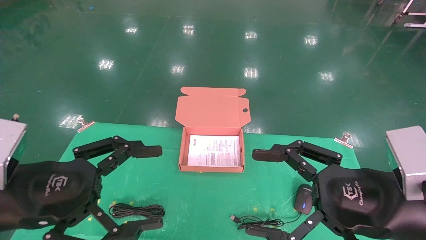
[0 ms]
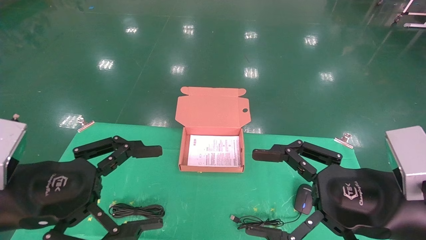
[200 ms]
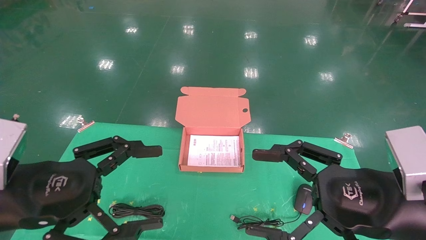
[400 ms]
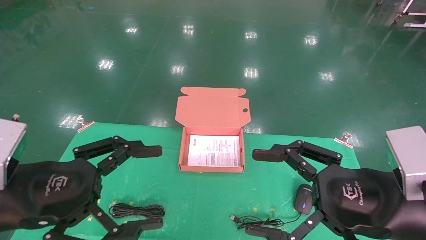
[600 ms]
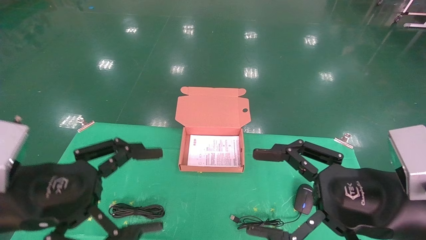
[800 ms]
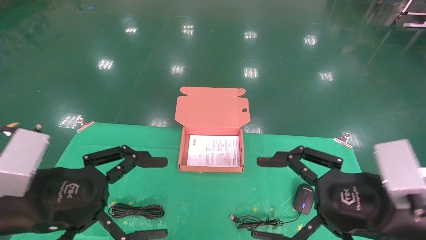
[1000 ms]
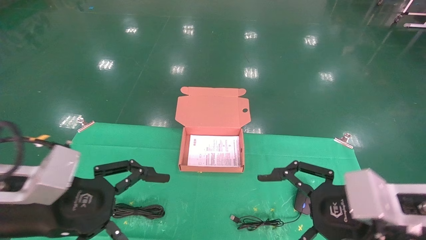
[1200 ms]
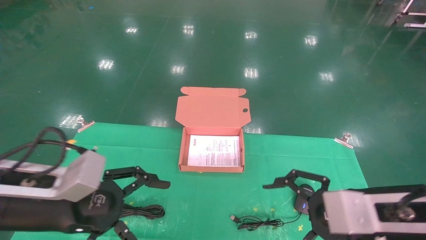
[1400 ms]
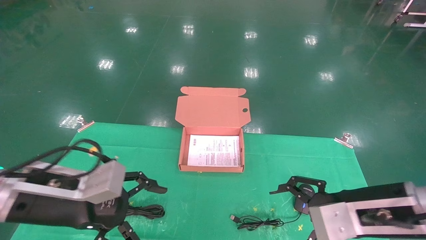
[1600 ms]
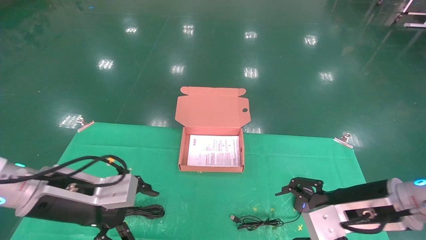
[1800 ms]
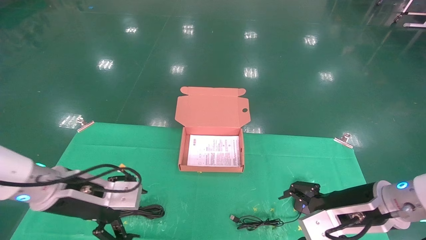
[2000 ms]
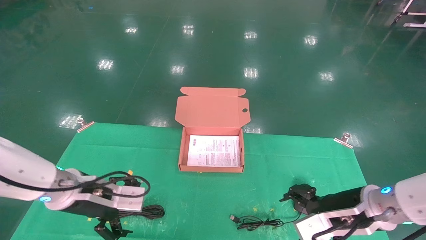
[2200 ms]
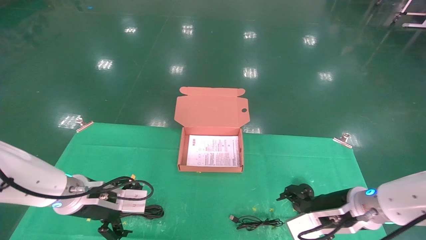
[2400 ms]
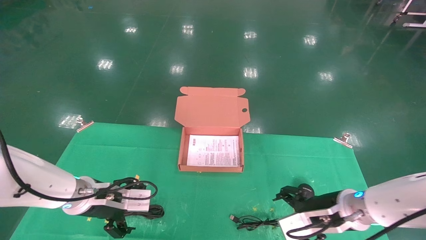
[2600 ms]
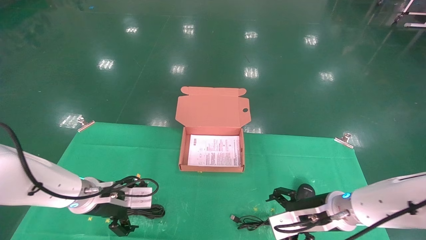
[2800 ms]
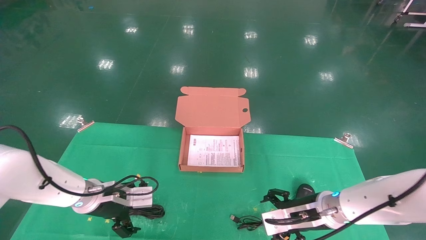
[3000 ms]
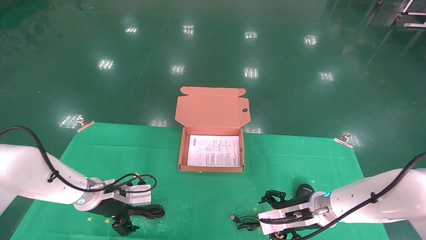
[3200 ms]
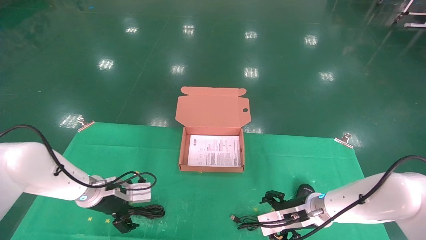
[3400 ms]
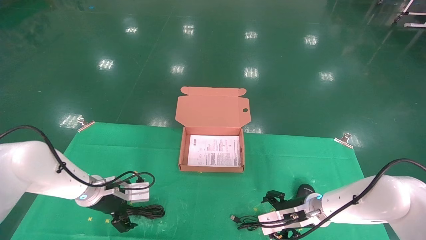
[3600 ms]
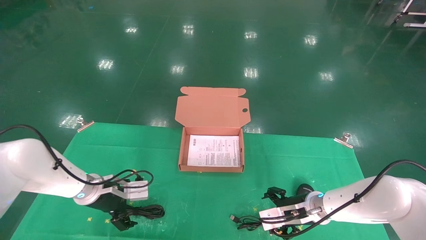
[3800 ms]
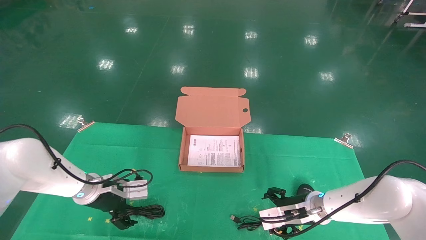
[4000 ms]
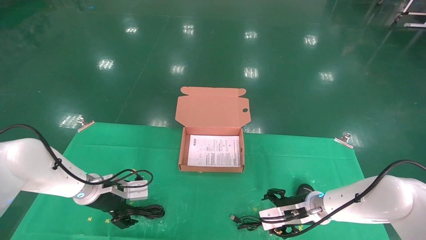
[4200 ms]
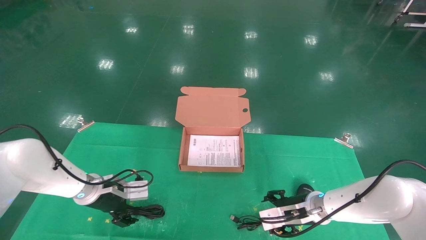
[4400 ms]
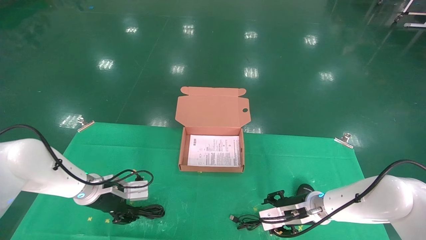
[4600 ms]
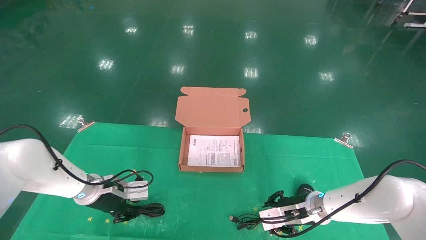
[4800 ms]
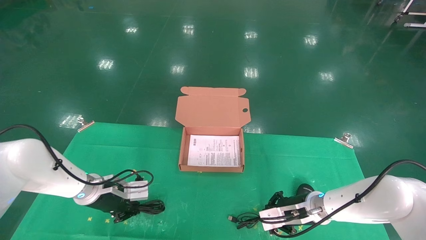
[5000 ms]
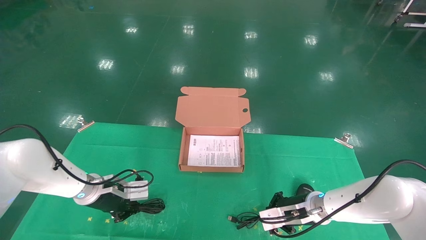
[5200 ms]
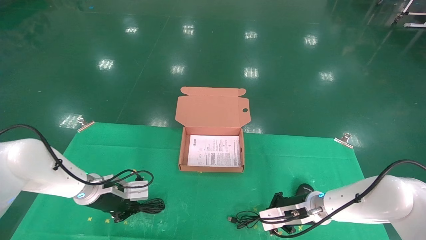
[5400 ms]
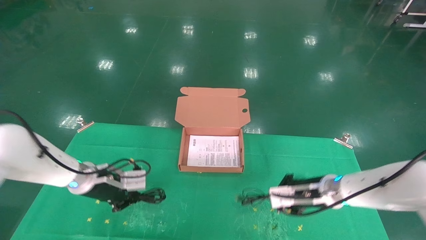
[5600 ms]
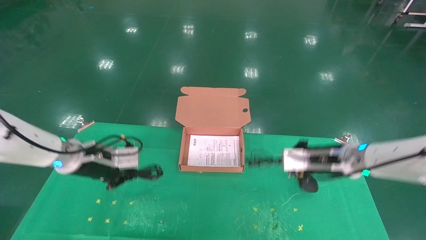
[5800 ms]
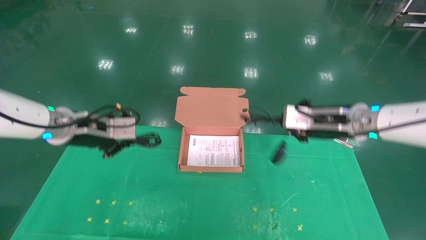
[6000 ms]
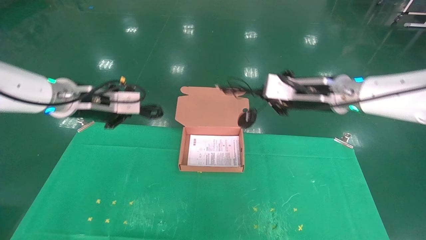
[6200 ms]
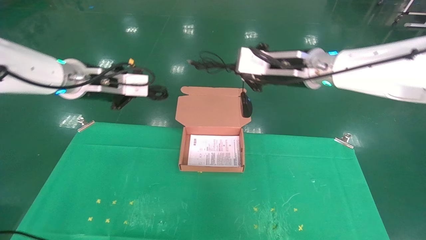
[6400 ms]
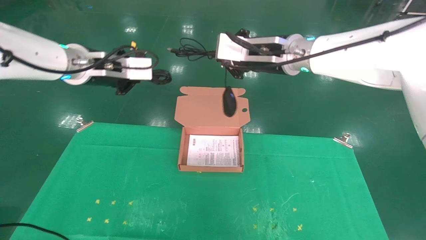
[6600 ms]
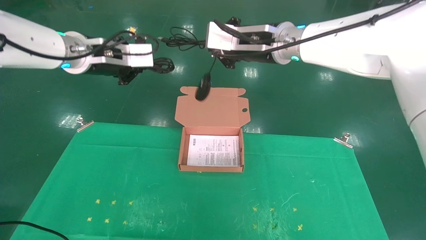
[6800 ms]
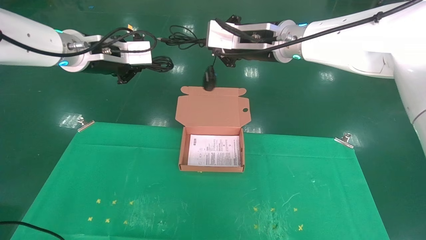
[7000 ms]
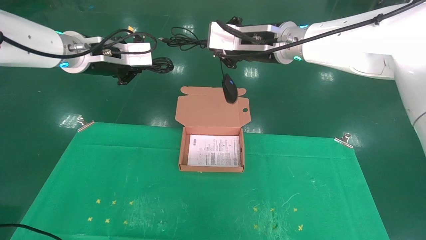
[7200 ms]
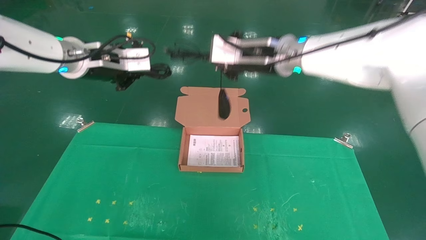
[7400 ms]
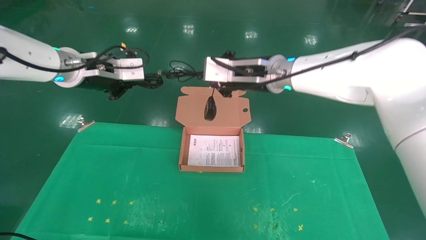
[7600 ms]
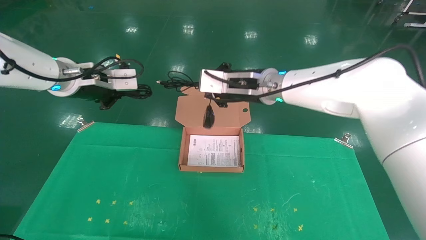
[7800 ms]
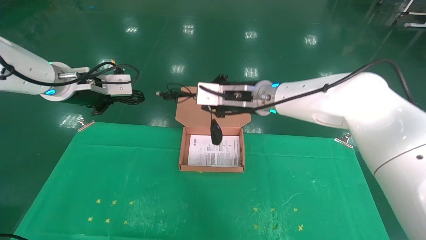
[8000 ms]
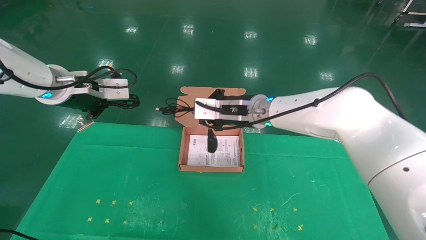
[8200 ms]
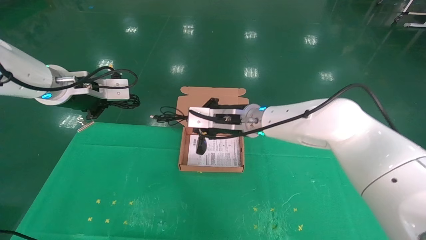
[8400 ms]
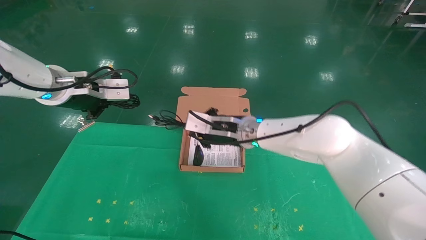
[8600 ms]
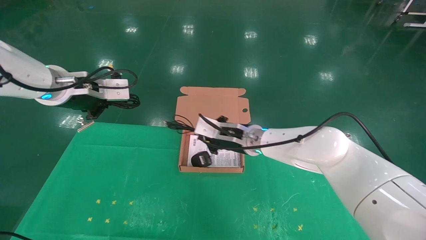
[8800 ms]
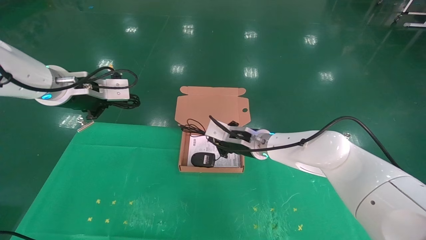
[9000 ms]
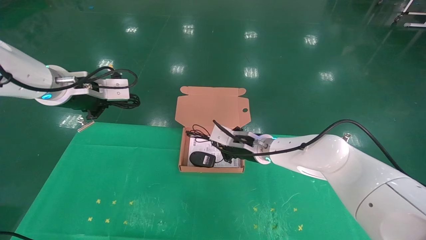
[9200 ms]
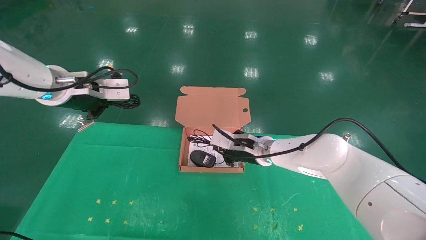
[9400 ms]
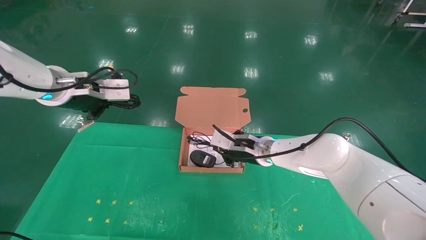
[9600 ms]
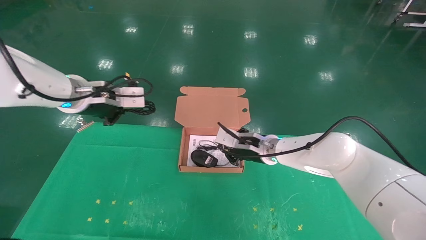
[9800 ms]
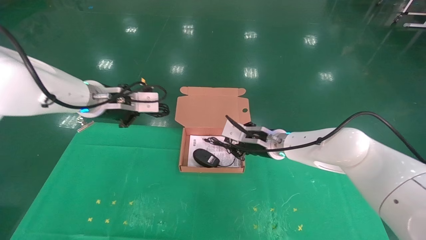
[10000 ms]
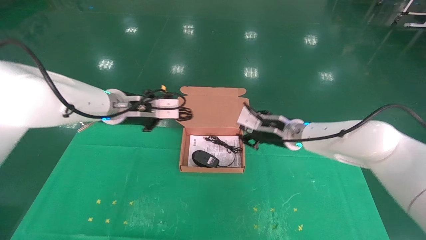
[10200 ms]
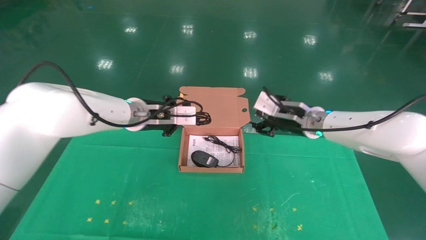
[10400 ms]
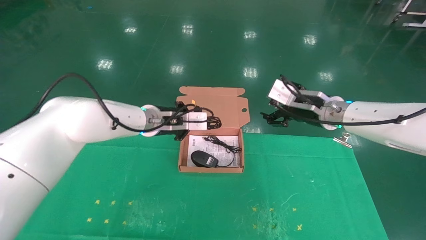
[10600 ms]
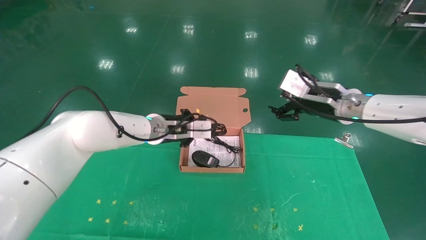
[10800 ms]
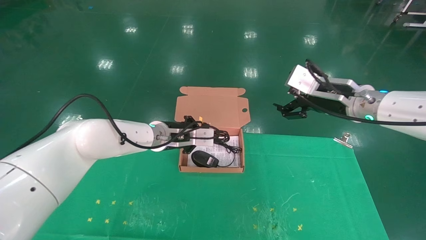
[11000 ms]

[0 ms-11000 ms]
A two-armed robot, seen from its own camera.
Task of the whole recording: grasp data cable left put into box grasp mouse right put into box.
Step, 1000 ms to 5800 ms: Grab and pick up both the mouse and power cord from the accessory packaging area at the same time.
0 ms to 1600 ms: The two grippers go about 5 cm forward.
1600 ms to 3200 ms: The grippers both shift forward and downward by about 20 cm.
3200 ms to 4800 ms: The left gripper closes; the right gripper closes.
4800 ms to 6200 ms: Both grippers move upward, about 25 cm. The left gripper closes up. Meanwhile the right gripper closes.
6200 ms to 7800 ms: The right gripper moves to the left, roughly 10 cm.
7800 ms to 9400 ms: The right gripper travels downward by about 15 cm.
9400 ms to 11000 ms: The left gripper moves to the right, downward and forward, roughly 25 cm; the right gripper shifts some 25 cm to the right, upward and backward, and opens its fingers.

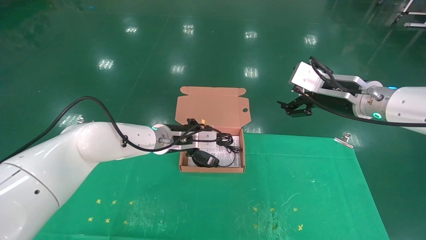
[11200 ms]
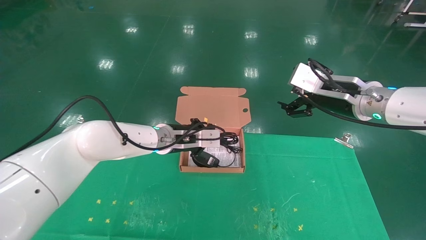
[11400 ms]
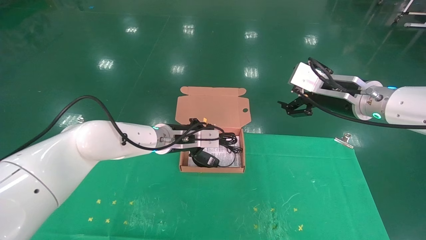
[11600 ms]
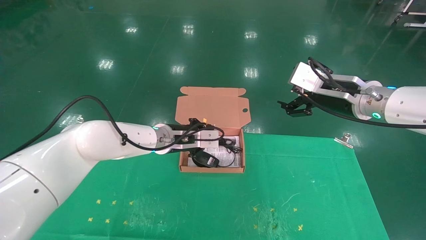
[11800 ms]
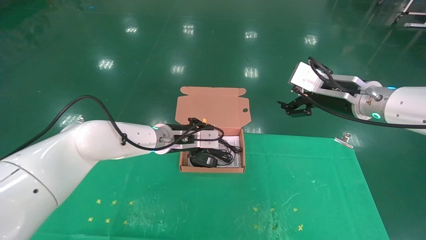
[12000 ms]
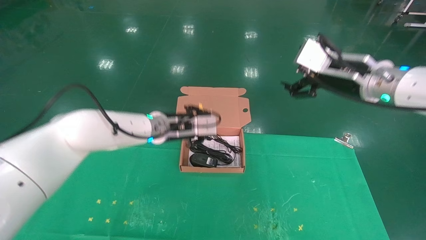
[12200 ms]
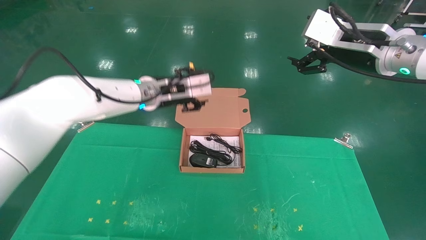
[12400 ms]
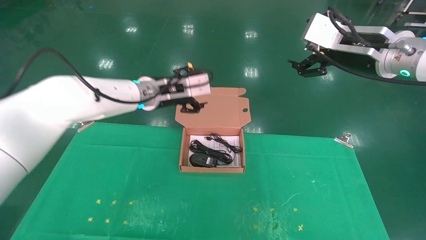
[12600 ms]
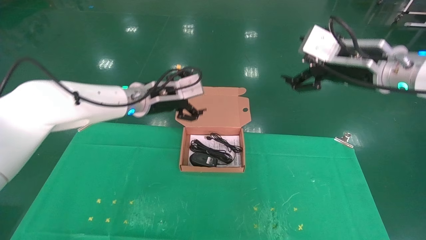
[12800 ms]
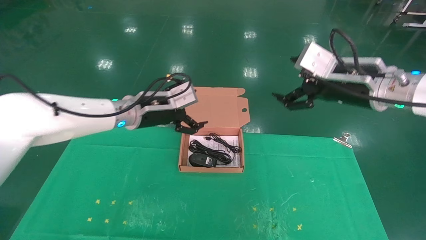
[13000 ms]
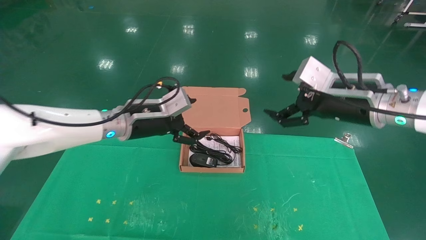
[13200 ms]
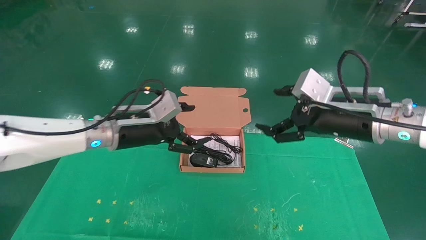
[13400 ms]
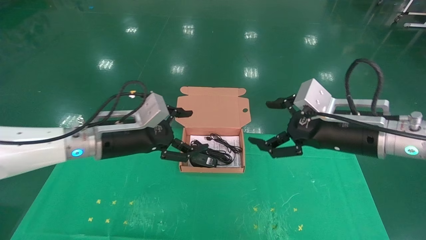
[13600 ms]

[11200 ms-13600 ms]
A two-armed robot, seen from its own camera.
Task of the whole recording: grasp data cable left put into box grasp mouse right put into box.
11200 ms to 12400 ms: The two grippers go roughly 10 cm upward. The left gripper opens its fingers.
12400 ms to 13600 ms: The left gripper is displaced backward, to the left and downward by roughly 15 cm, and opens up. The right gripper moves downward and backward, approximately 15 cm.

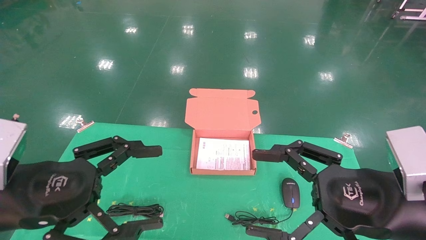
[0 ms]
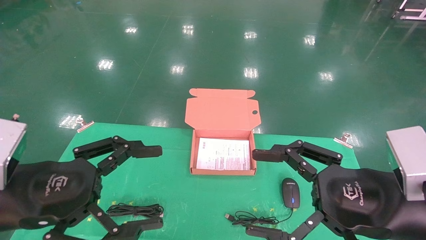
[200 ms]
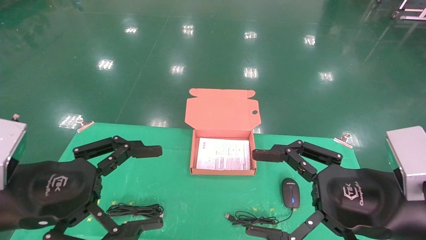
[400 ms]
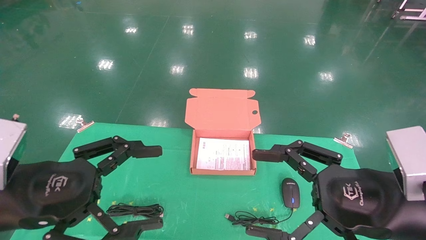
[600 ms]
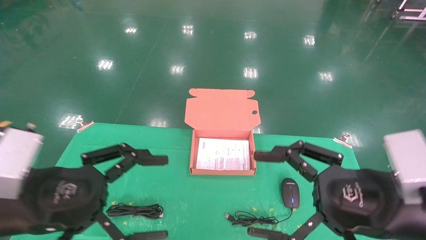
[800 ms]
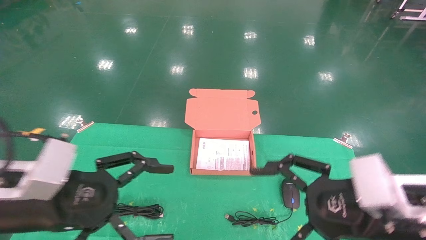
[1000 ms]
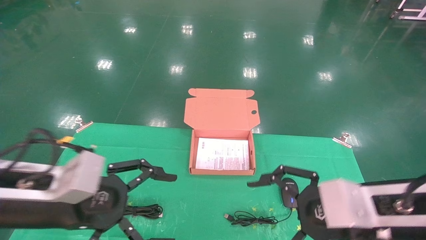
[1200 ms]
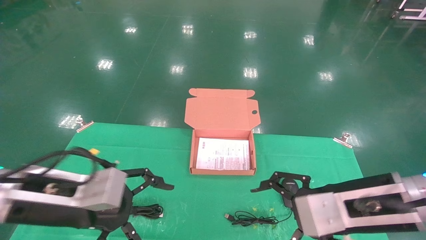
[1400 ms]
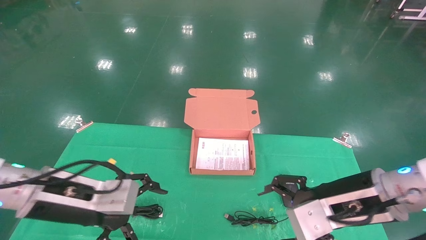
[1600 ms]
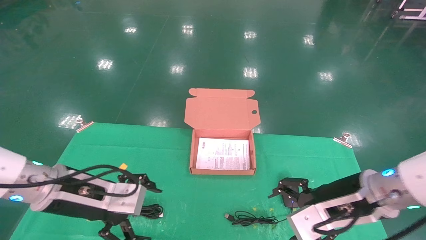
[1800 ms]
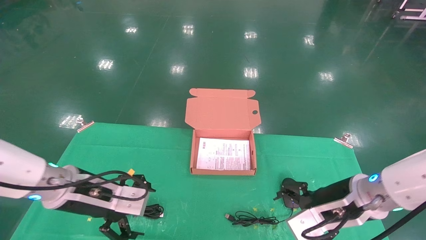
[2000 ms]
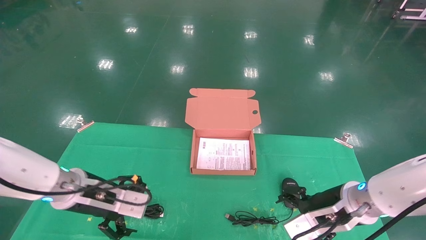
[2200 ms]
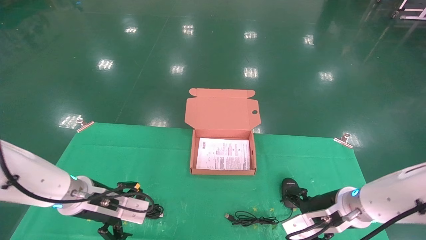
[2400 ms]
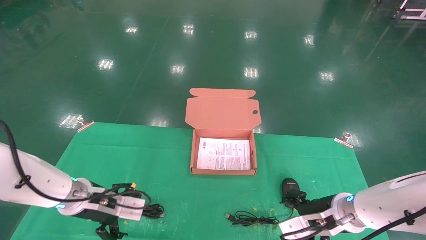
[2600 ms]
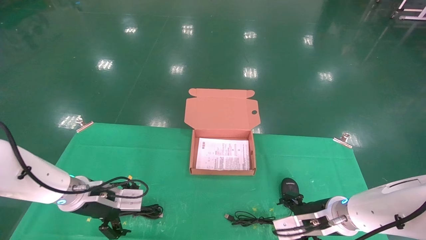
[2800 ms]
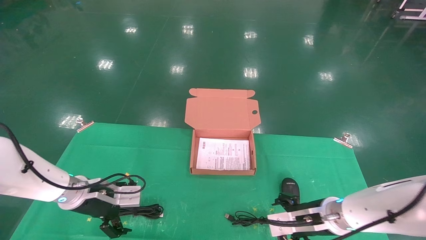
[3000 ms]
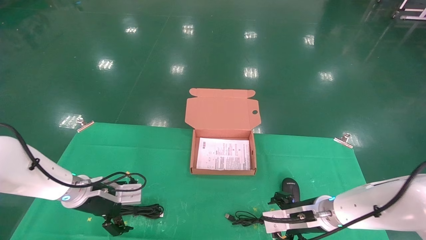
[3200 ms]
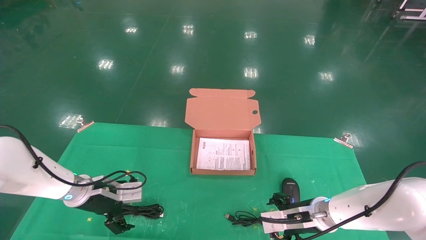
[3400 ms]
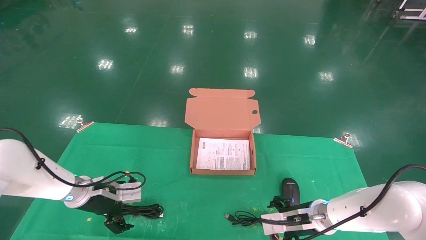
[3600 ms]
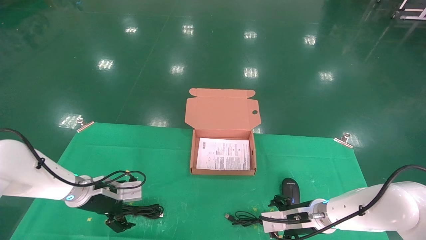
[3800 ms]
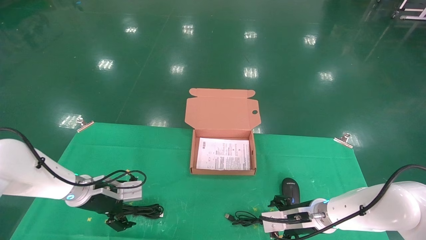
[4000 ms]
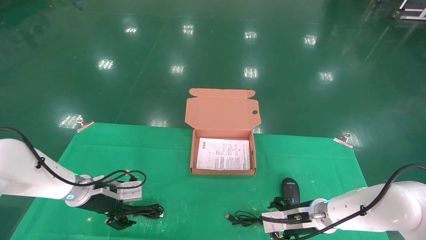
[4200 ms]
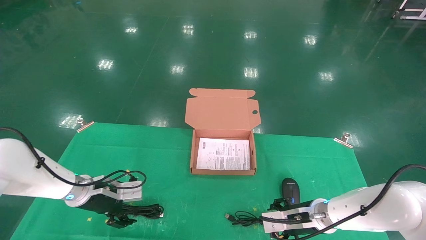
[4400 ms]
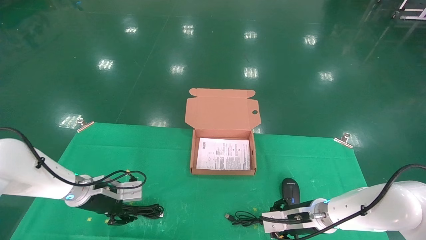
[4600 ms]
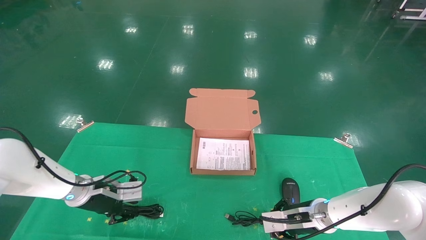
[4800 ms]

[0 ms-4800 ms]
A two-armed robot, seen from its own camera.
Task of the whole recording: grasp data cable left put into box grasp mouse right put into box.
0 ms to 1600 ms: Both grippers travel together forward, about 10 cm.
1600 ms to 3200 ms: The left gripper shifts some 15 cm forward and downward; the right gripper moves downward and forward, approximately 15 cm.
3200 ms to 4800 ms: The right gripper closes its fingers. Meanwhile the left gripper closes its fingers.
